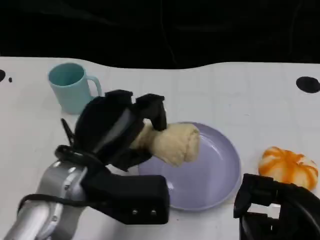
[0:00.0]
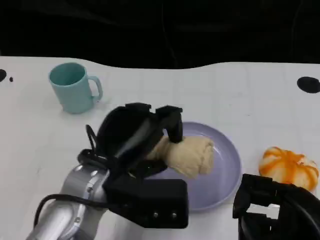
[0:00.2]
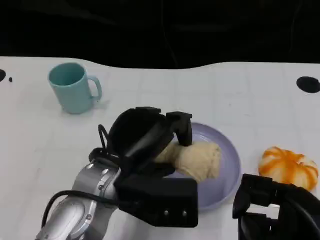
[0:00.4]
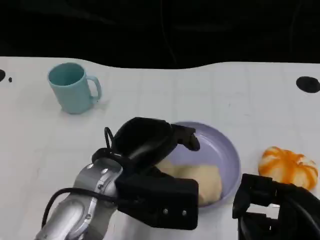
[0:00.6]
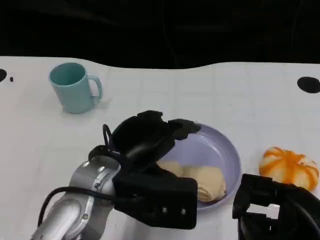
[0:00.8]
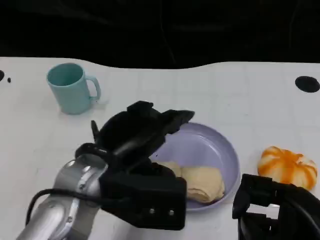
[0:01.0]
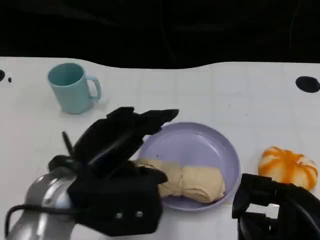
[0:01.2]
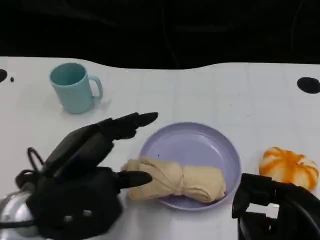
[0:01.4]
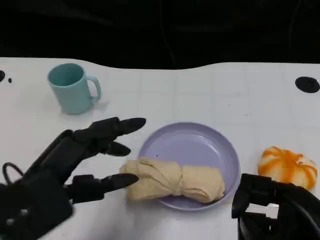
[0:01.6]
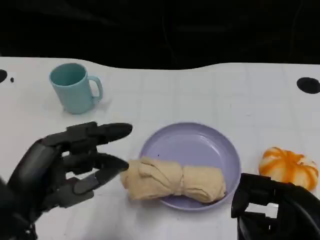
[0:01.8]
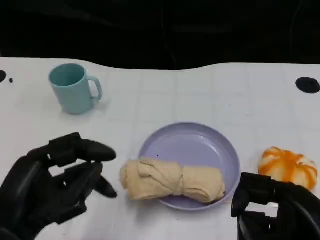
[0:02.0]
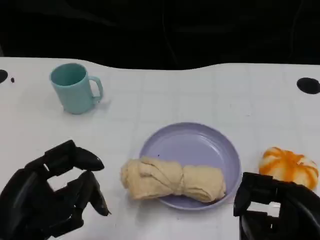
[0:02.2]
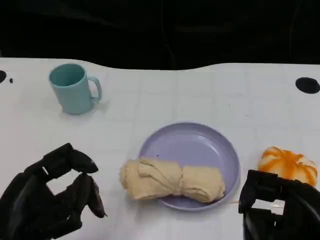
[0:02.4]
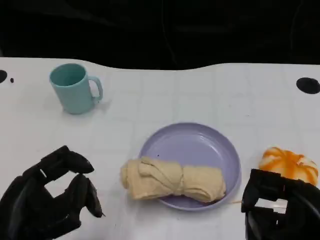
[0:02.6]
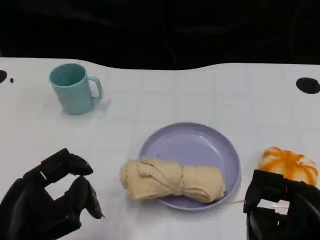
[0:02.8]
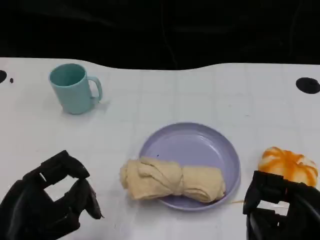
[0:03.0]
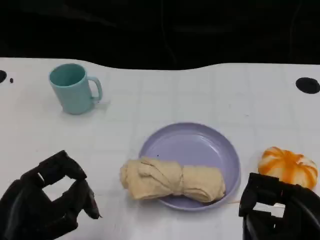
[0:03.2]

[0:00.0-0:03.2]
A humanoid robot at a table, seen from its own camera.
Task of the whole recording: Grasp the towel on the left side of the plate with the left hand and place it into the plate.
0:00.0 to 0:01.6: The left hand goes approximately 10 cm to the left and backward.
0:01.6 to 0:03.2: The left hand moves approximately 5 cm.

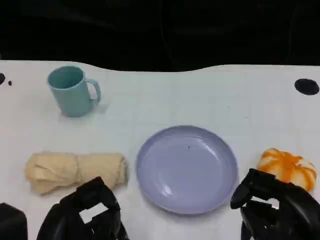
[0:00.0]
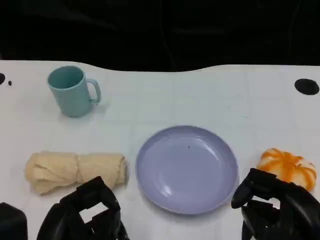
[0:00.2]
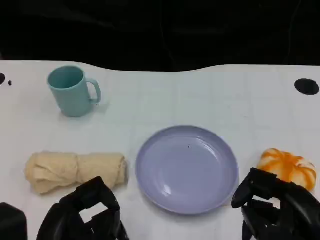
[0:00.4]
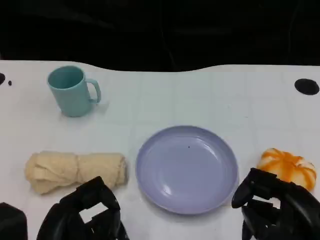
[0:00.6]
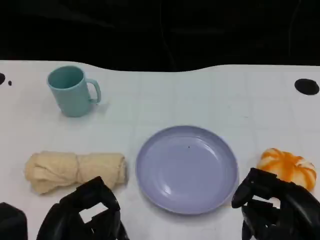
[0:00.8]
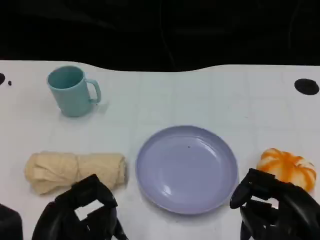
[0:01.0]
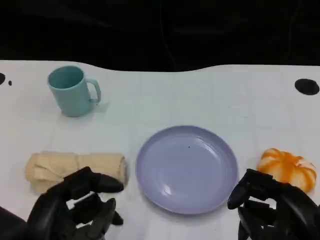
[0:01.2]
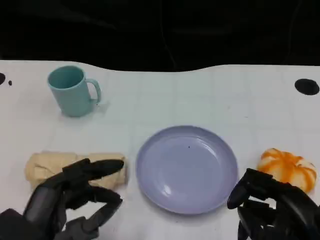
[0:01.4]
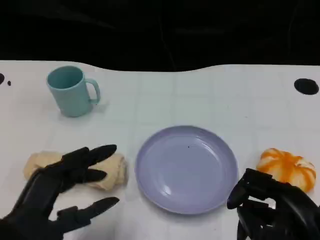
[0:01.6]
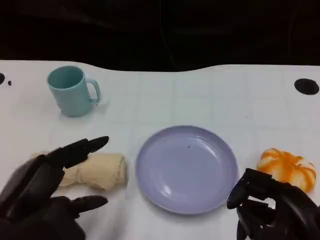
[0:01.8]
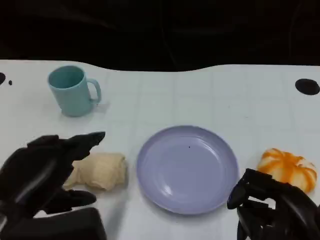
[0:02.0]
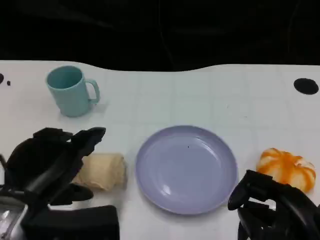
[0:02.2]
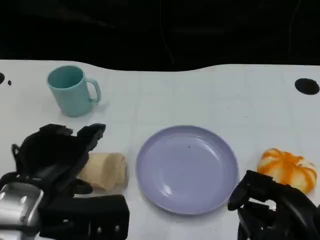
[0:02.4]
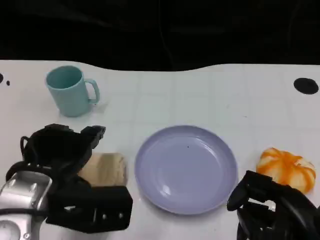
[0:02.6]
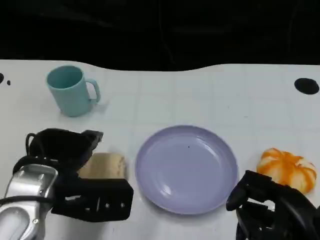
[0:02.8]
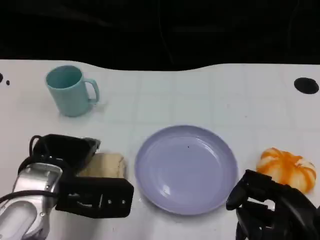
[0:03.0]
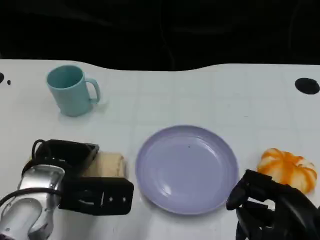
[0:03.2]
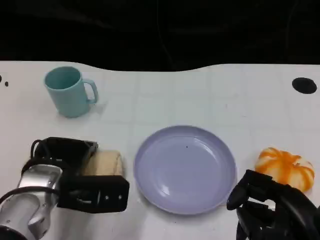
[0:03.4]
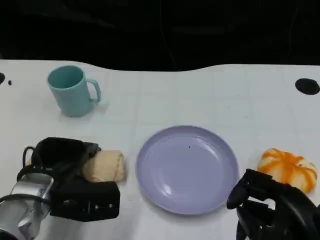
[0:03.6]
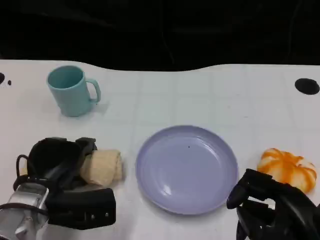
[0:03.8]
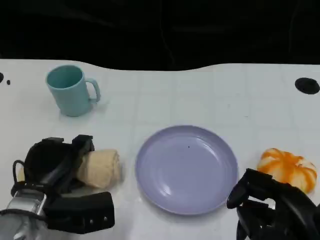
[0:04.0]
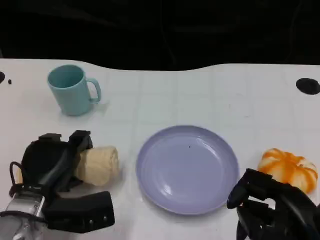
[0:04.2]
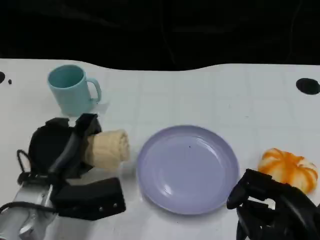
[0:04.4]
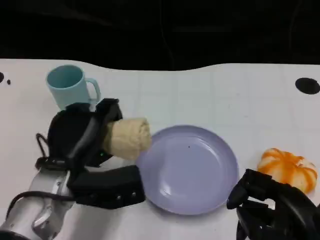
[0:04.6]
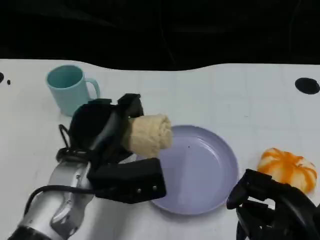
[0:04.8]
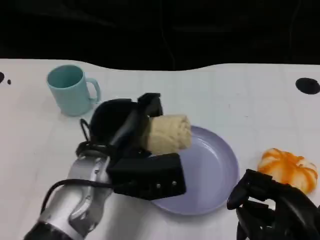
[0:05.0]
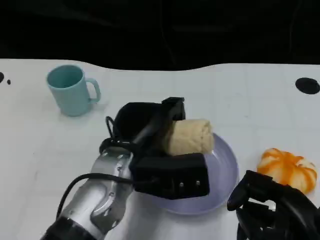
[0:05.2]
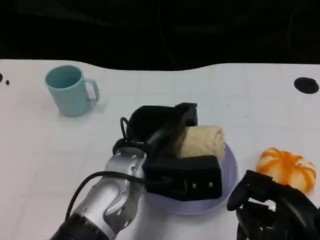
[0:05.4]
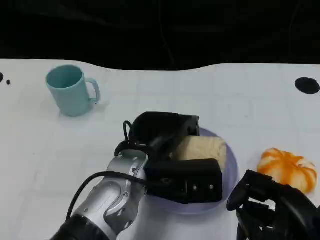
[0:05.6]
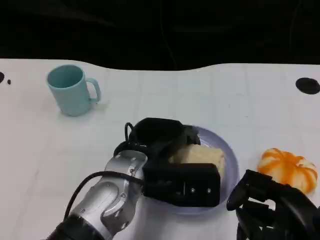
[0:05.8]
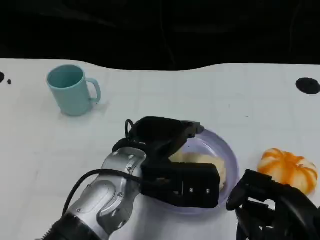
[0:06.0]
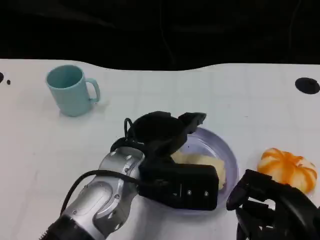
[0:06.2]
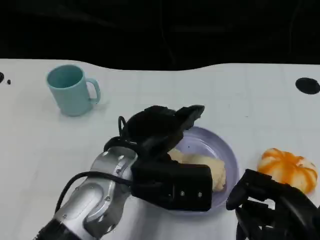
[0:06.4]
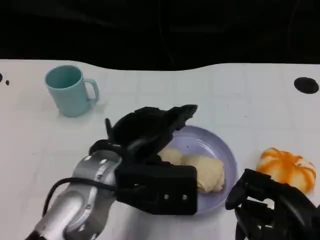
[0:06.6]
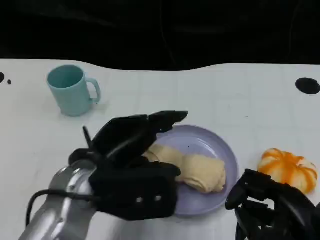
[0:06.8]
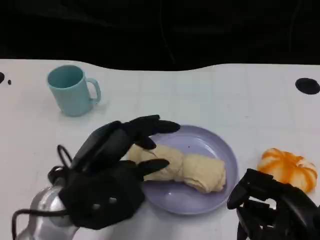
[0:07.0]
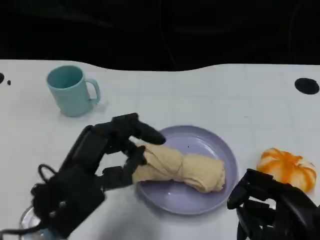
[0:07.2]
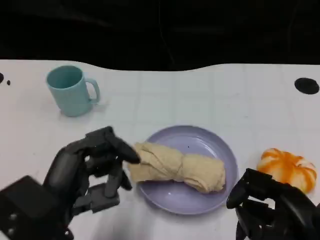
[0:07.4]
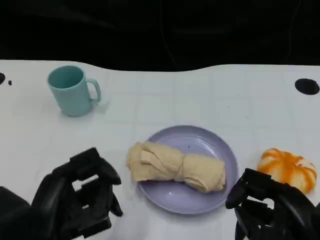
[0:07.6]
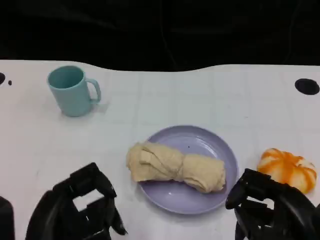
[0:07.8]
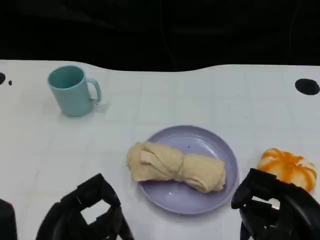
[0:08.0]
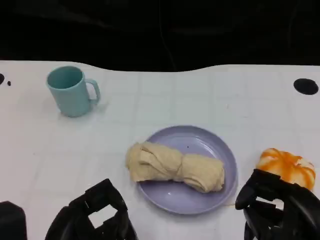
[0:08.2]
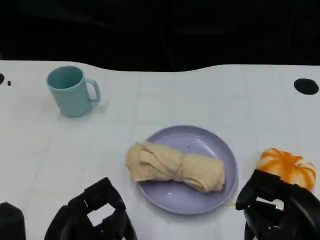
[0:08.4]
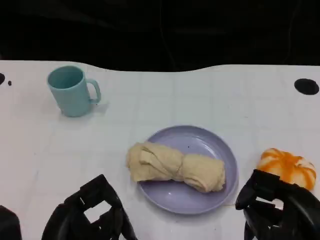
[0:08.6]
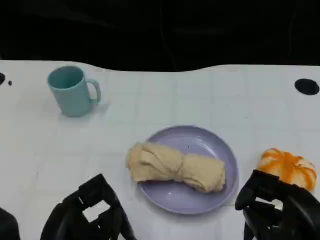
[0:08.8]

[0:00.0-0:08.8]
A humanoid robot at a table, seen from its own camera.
Task of the whole recording: Grasp the towel on the left side of the plate with the left hand and place it into the plate.
0:01.4 to 0:03.0: The left hand travels forward by approximately 10 cm.
0:04.4 to 0:05.8: The left hand goes approximately 15 cm to the right and upward.
0:05.8 to 0:07.4: The left hand heads to the left and backward, covering approximately 15 cm.
